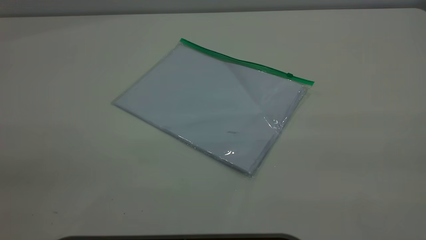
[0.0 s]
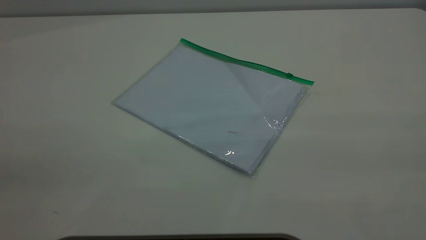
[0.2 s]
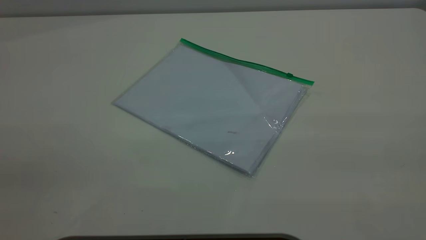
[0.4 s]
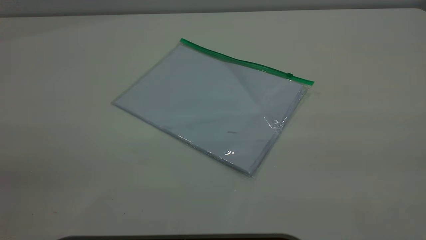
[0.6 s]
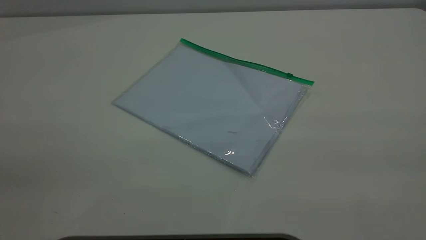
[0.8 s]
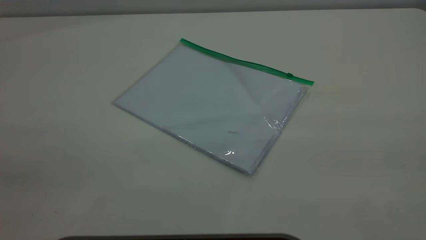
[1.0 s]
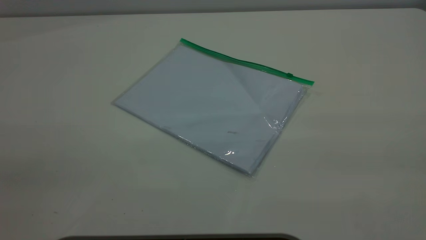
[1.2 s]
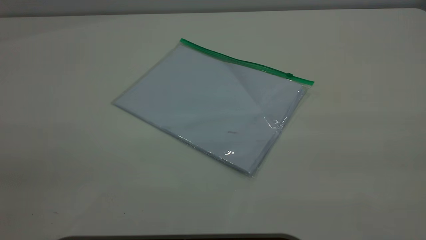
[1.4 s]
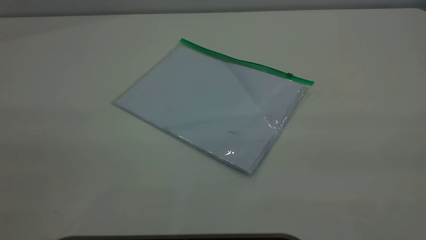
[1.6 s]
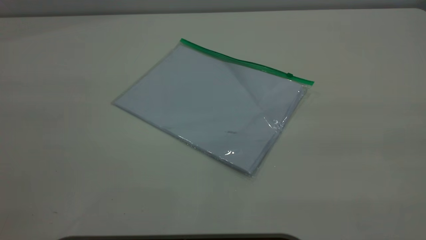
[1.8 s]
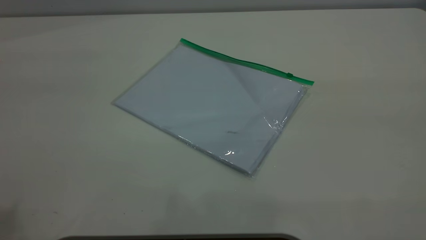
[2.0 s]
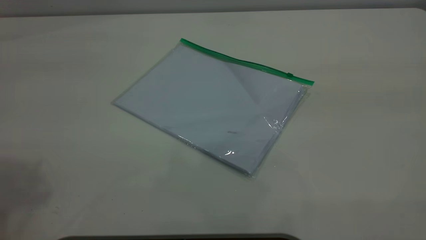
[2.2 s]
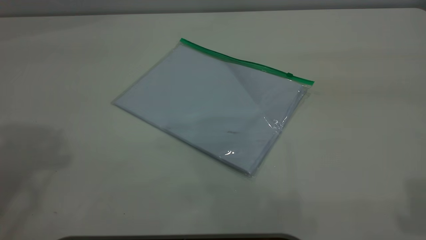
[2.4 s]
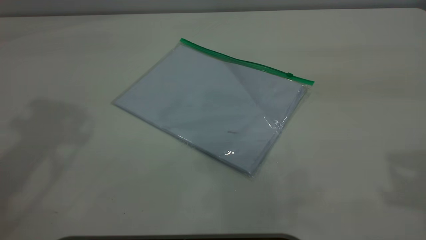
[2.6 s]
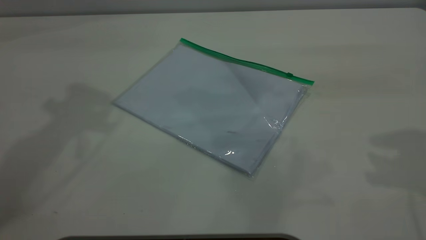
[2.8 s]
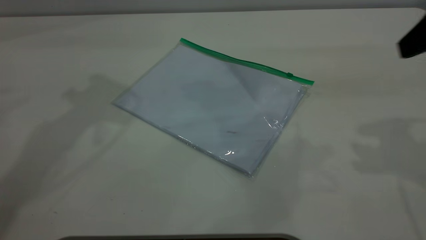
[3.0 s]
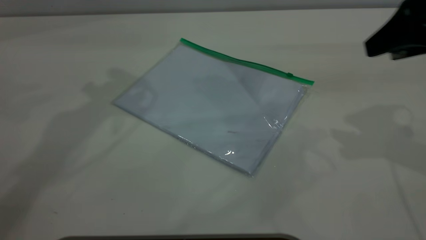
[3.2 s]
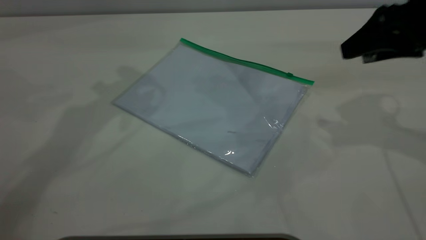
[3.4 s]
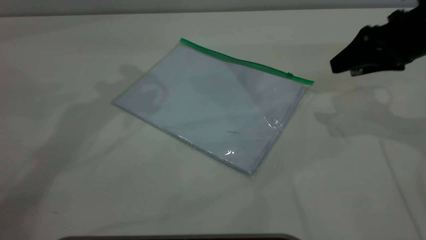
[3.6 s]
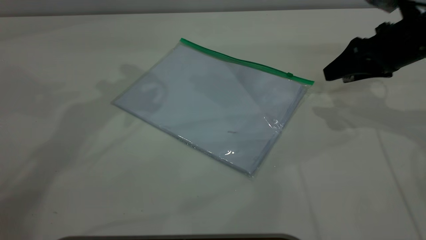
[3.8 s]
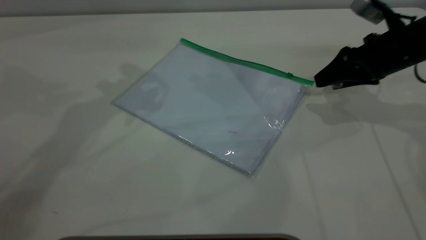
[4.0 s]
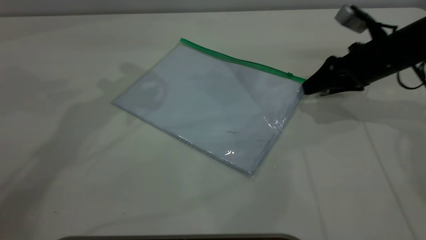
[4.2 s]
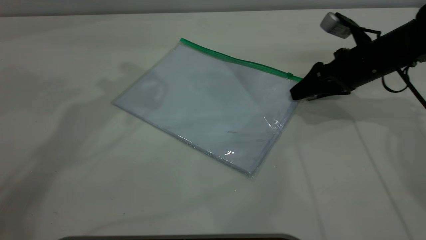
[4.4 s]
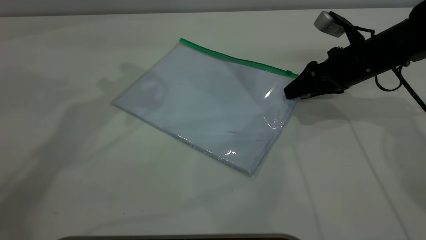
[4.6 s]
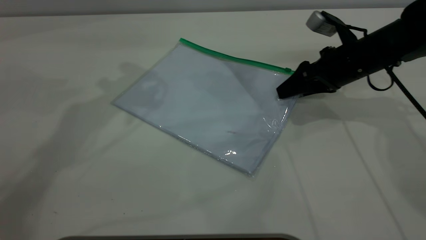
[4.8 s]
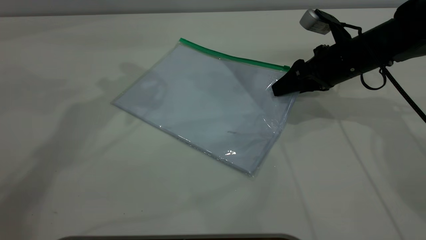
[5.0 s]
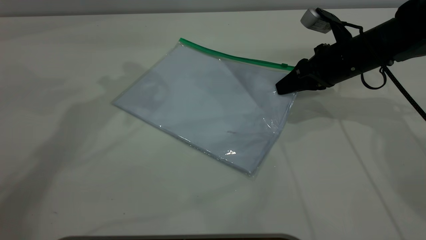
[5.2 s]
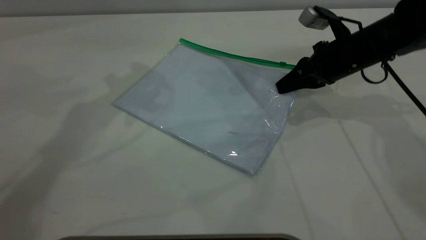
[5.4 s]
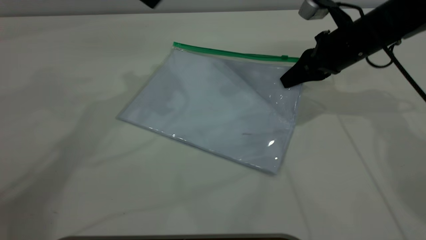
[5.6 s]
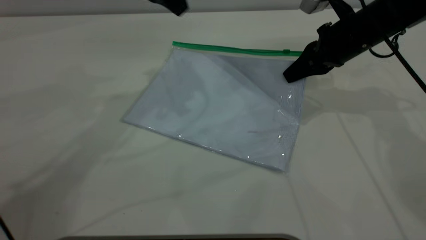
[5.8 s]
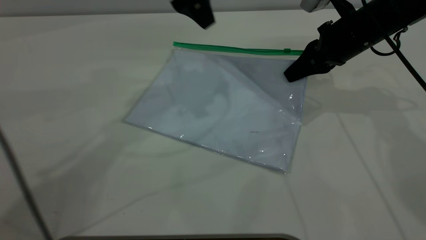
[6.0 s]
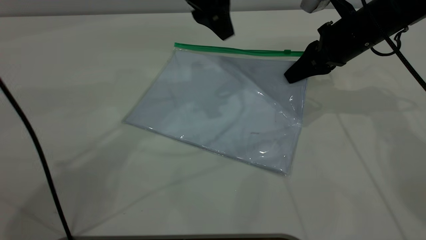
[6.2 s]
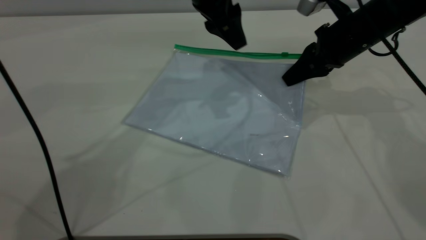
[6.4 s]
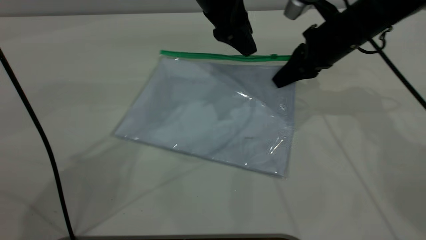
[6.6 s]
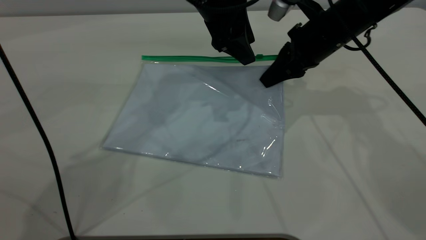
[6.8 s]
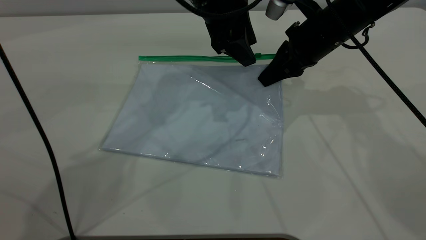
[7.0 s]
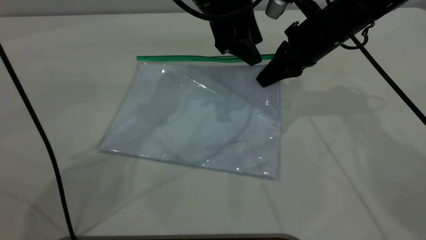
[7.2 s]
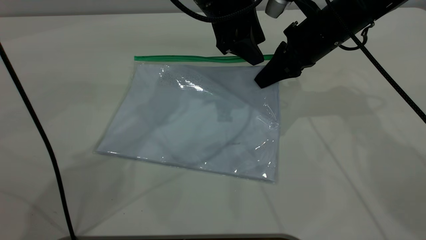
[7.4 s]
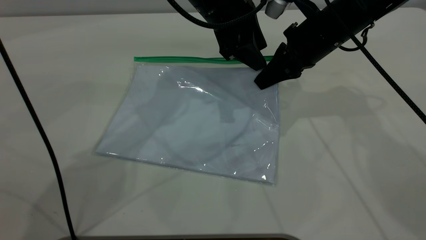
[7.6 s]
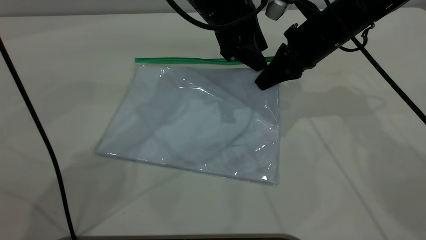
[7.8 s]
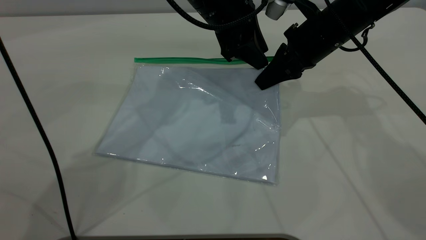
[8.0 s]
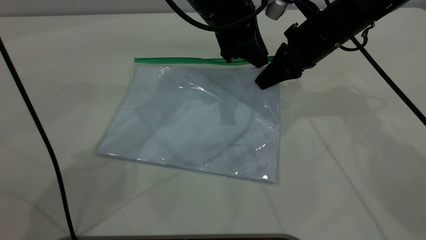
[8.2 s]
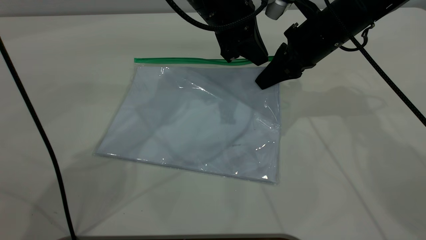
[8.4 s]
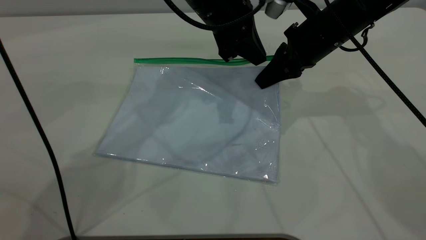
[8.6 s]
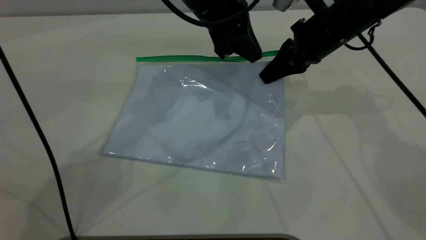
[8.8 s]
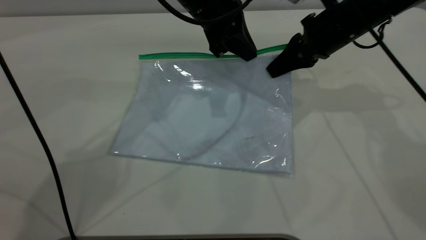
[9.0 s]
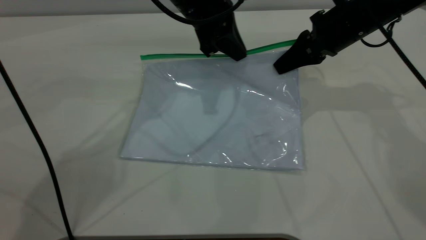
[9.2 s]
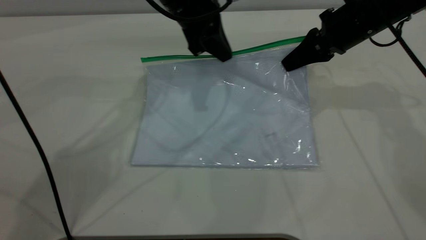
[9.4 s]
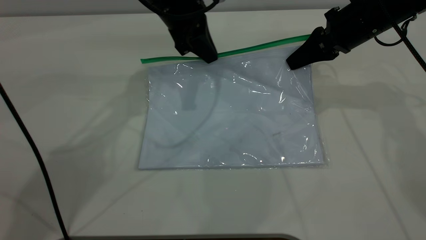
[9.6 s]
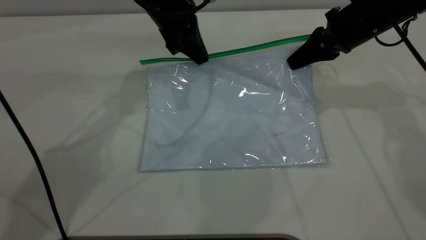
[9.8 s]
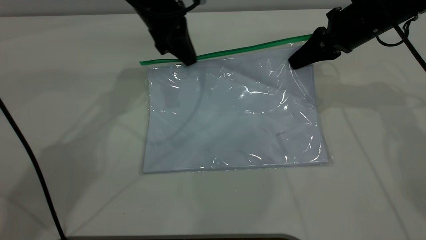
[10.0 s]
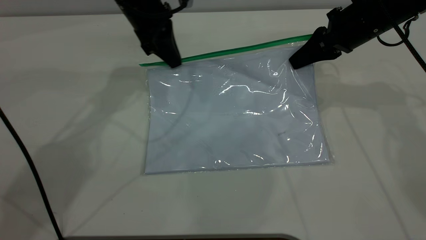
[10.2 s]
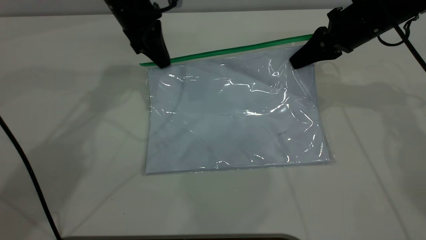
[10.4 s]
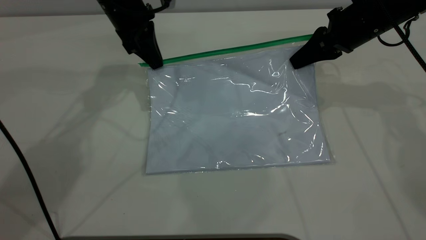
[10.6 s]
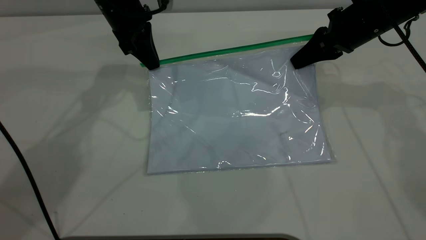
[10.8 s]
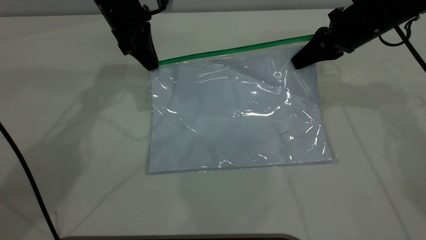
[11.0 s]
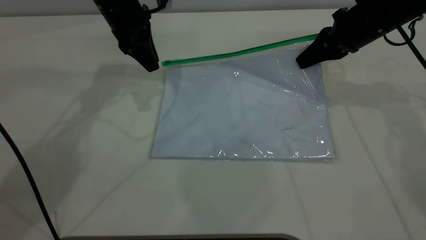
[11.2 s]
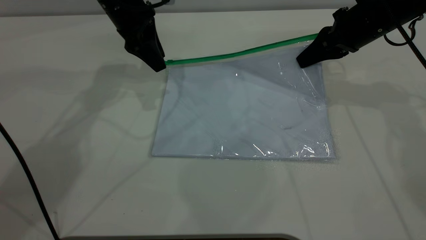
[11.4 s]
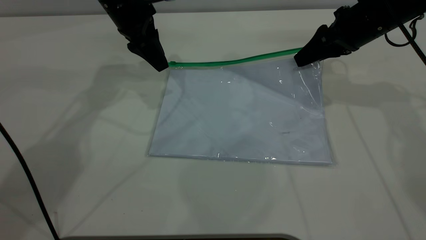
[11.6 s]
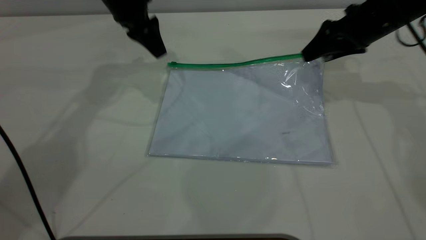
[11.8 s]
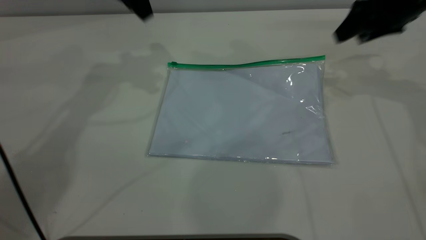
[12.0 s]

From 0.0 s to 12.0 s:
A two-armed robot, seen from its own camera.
Step, from 0.0 s to 5.6 s: Pick up the transparent plastic bag with the right gripper.
Step, from 5.8 s to 11.2 s: Pulling up the zipper on the transparent plastic bag with the left gripper to close it.
From 1.6 s to 3.0 s: The right gripper moves forward and downward, roughly 30 cm.
From 3.0 s to 4.4 s: The right gripper heads downward and forward, covering about 20 cm.
From 4.4 s to 6.0 s: The right gripper moves roughly 5 cm, and closes. Meanwhile the left gripper is displaced to the right and downward by roughly 15 cm.
From 6.0 s to 7.6 s: The right gripper shifts roughly 5 cm to the left. The left gripper moves downward and to the right, some 10 cm.
From 7.6 s to 9.0 s: The left gripper closes up.
From 9.0 s to 10.4 s: The left gripper is displaced to the left by roughly 10 cm.
From 10.4 s to 12.0 s: The left gripper shifts roughly 10 cm upward, and opens, while the right gripper moves to the right and upward, about 10 cm, and opens its fingers.
